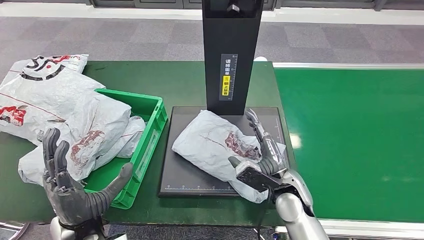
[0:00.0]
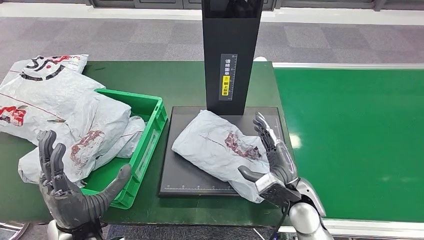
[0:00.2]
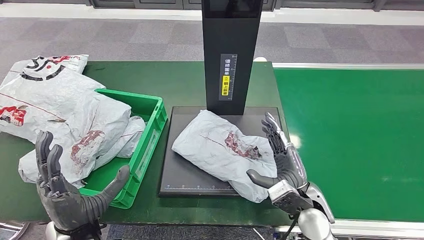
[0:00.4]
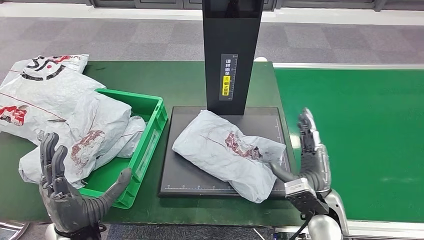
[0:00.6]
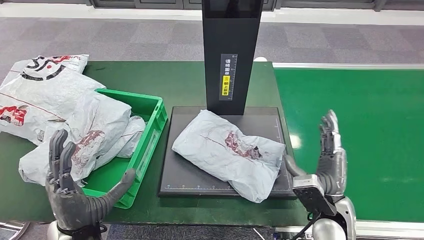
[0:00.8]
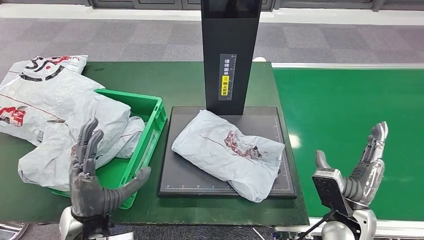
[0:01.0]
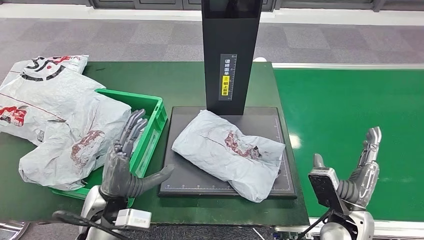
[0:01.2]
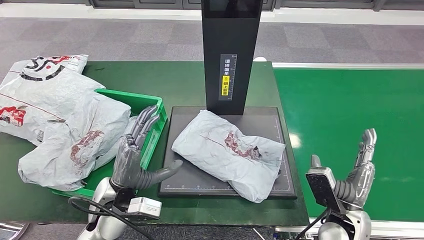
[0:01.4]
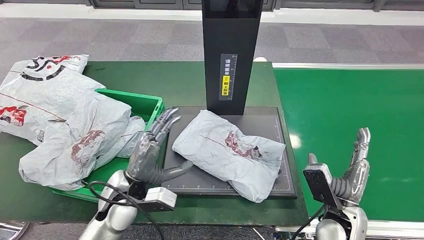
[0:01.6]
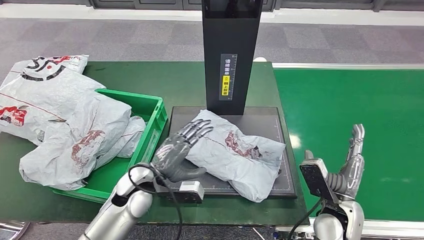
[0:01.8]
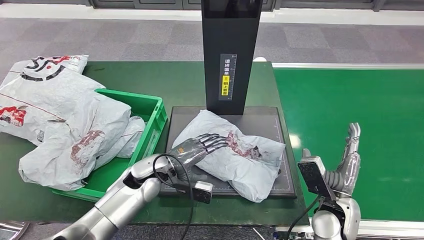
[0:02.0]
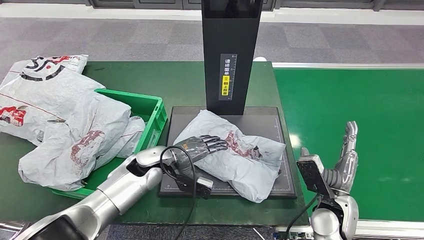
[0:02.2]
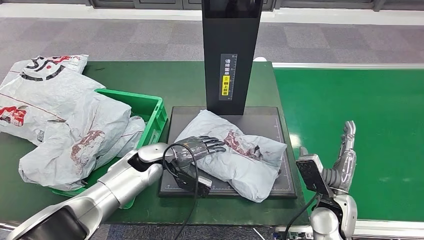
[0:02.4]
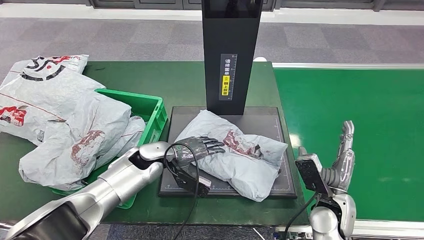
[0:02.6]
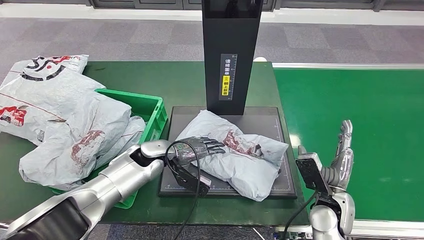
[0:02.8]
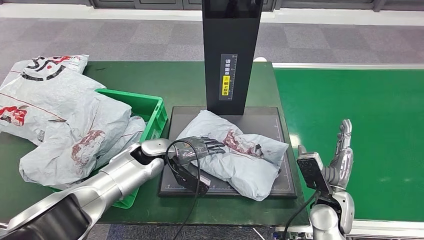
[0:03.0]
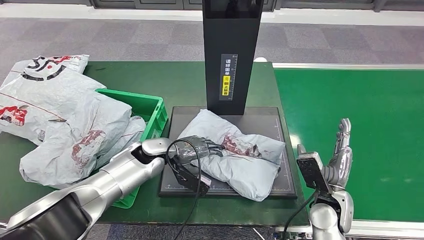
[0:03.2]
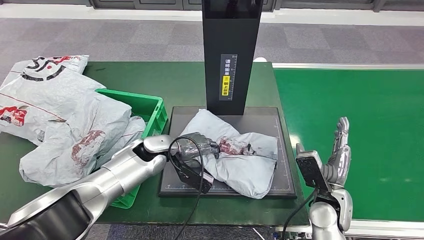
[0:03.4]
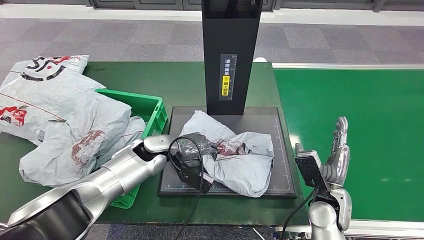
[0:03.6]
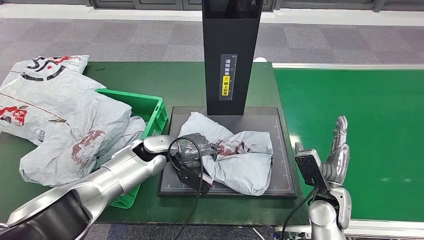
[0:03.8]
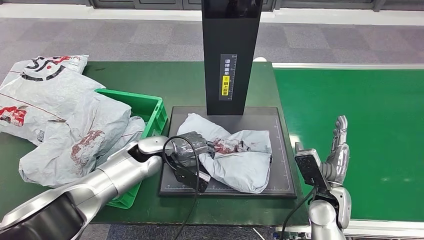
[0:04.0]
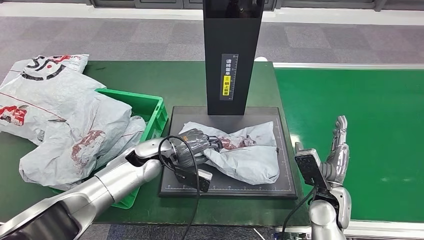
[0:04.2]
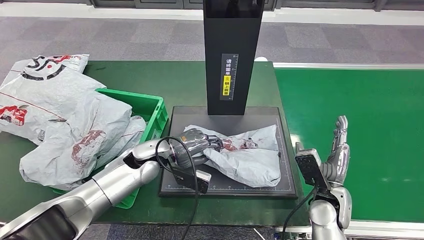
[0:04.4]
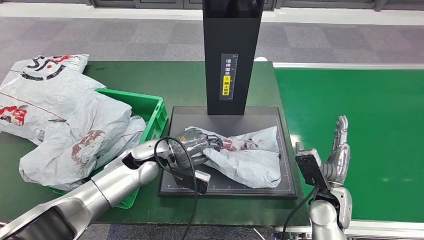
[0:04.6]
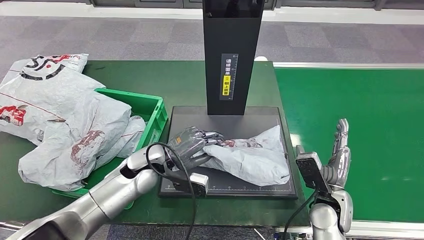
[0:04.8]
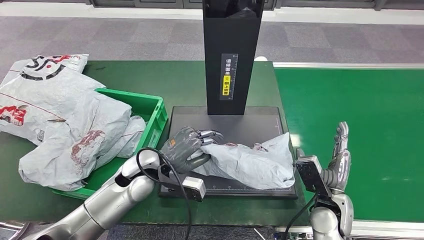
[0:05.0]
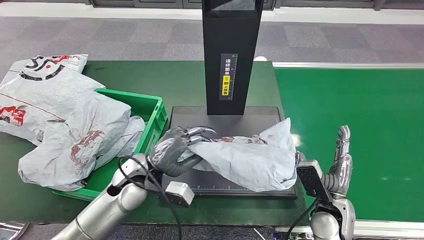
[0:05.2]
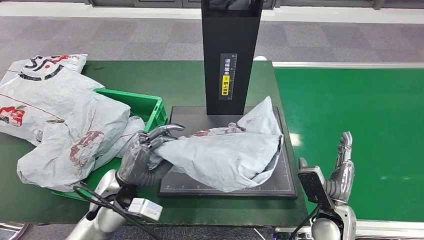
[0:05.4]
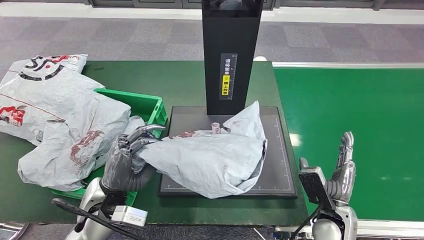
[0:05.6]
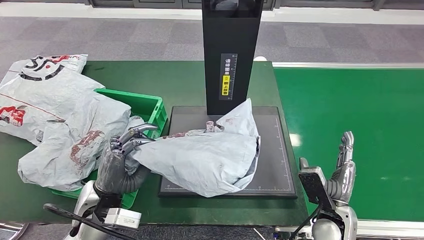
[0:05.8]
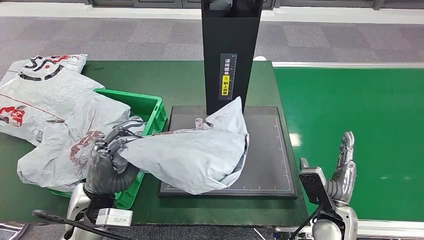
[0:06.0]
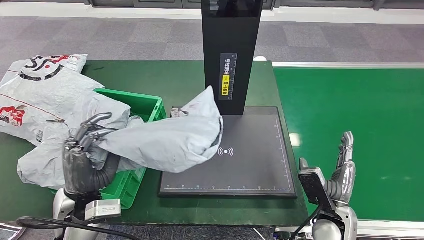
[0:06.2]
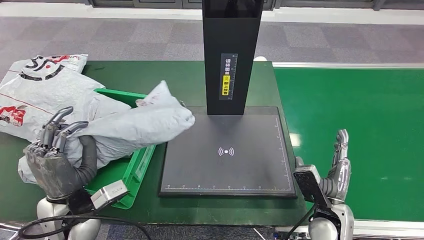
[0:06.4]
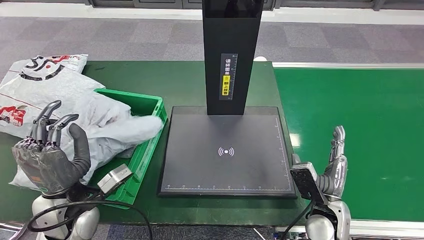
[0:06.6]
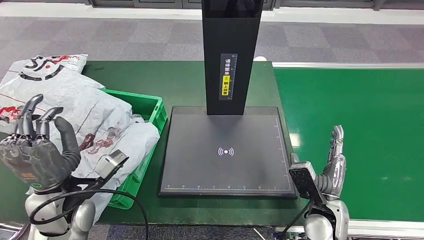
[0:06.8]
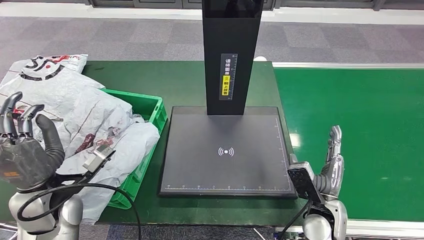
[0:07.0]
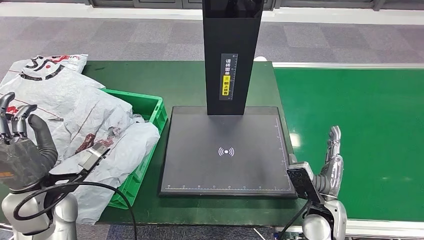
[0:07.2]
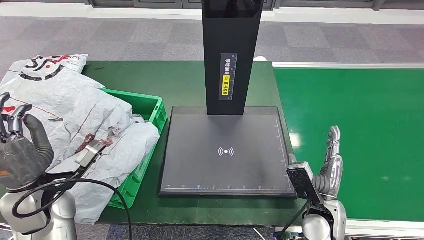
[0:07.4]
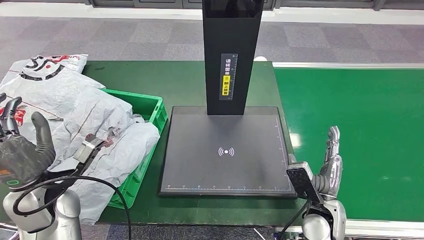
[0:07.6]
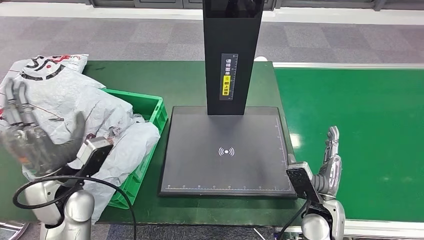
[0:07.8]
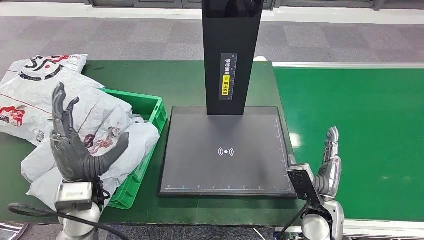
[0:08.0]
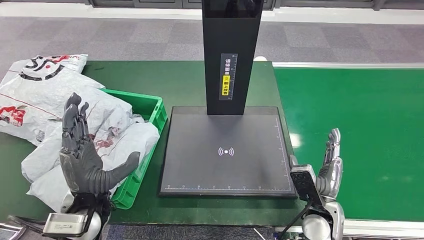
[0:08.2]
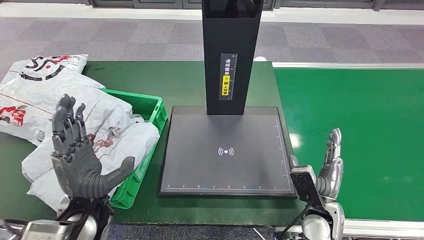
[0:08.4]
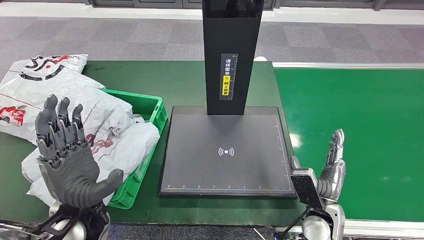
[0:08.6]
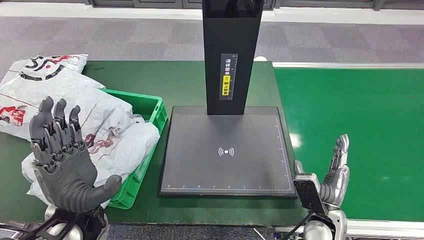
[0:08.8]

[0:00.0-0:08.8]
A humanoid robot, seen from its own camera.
Step, 0:01.4 to 0:04.8: Pick up the parcel from the inbound machine.
Step, 0:05.0 to 0:08.8: Place the parcel into the delivery box.
0:00.0 to 0:01.4: The right hand heads to the right and backward, covering approximately 15 cm. The left hand goes approximately 5 cm forward.
0:01.4 to 0:03.0: The left hand travels forward by roughly 15 cm.
0:07.4 to 0:08.8: The left hand is displaced to the right by some 10 cm.

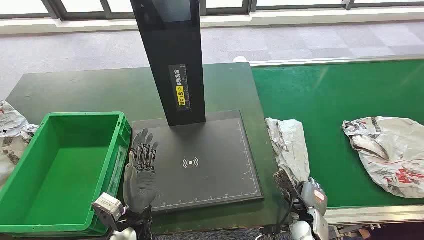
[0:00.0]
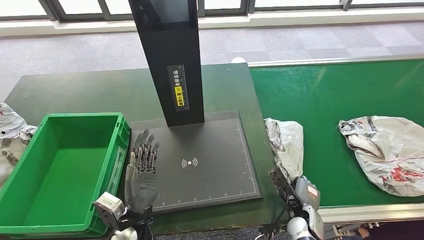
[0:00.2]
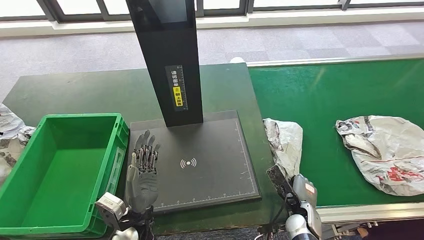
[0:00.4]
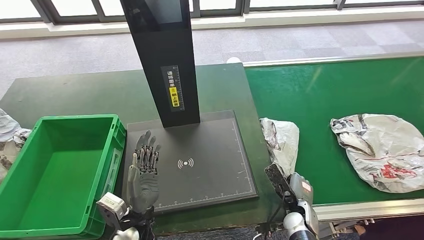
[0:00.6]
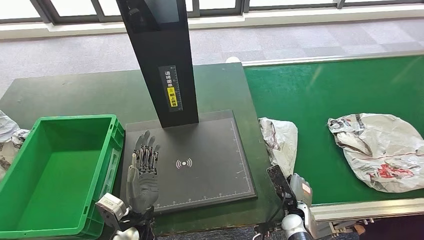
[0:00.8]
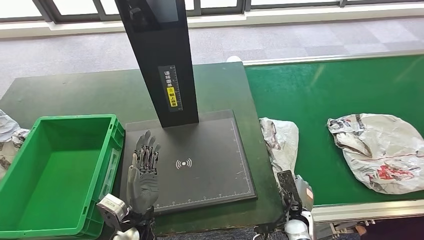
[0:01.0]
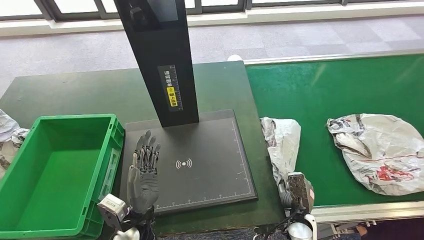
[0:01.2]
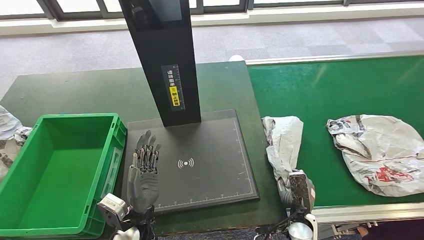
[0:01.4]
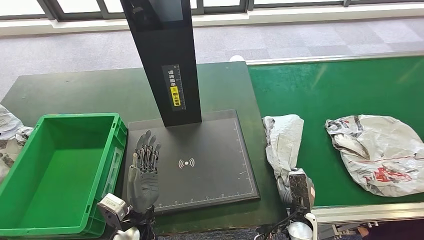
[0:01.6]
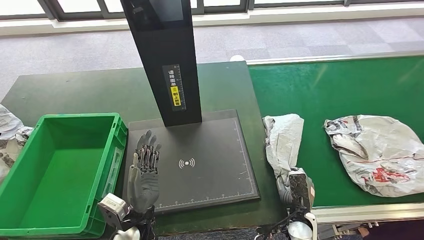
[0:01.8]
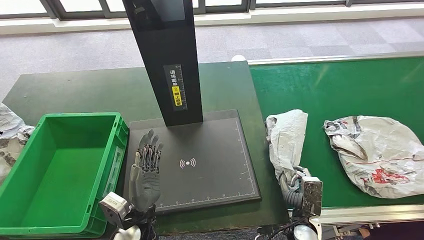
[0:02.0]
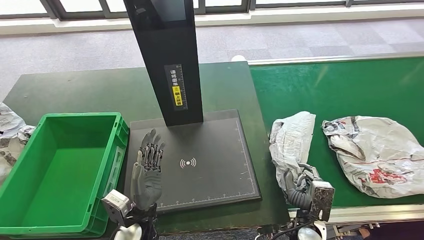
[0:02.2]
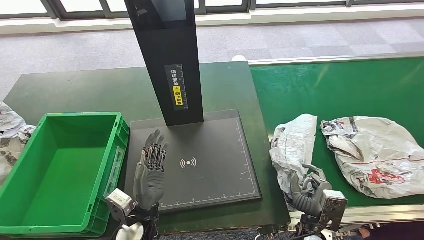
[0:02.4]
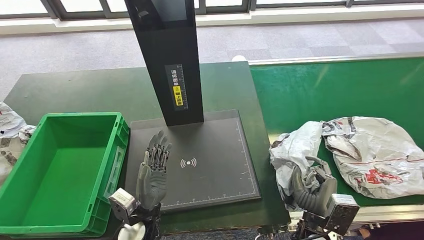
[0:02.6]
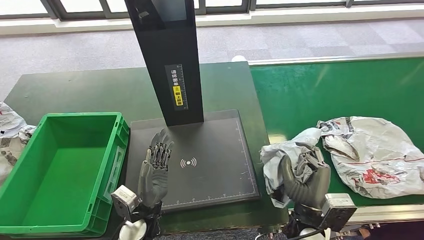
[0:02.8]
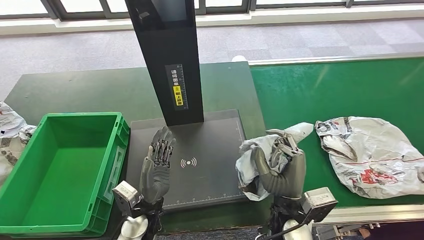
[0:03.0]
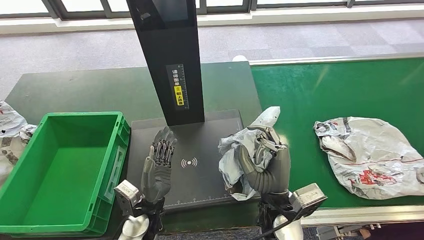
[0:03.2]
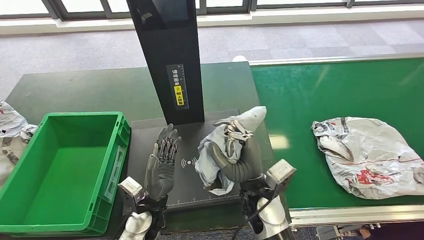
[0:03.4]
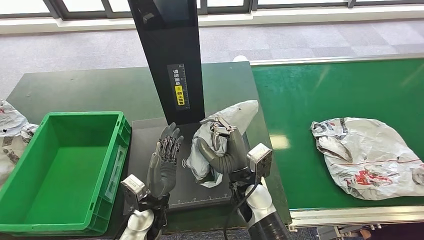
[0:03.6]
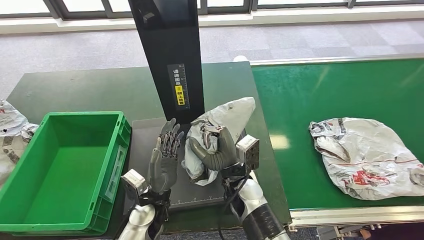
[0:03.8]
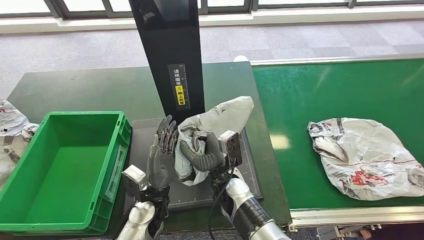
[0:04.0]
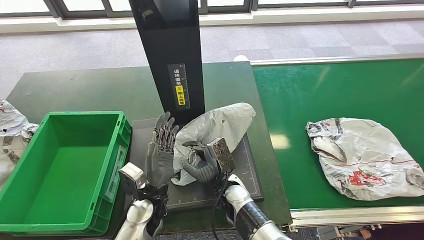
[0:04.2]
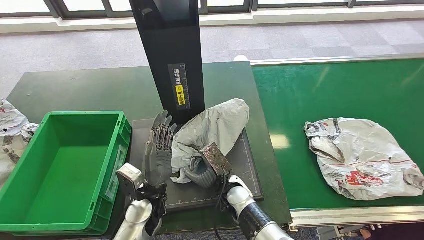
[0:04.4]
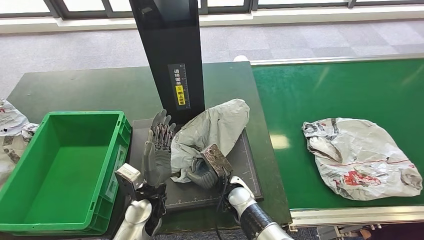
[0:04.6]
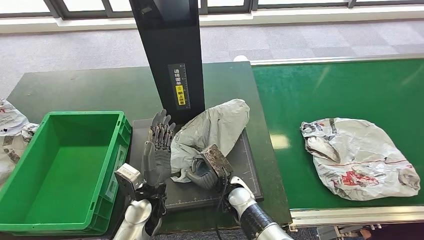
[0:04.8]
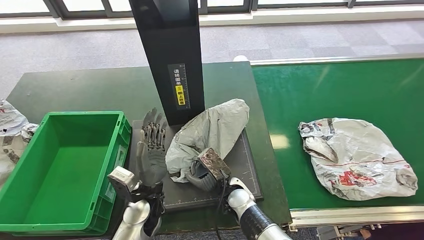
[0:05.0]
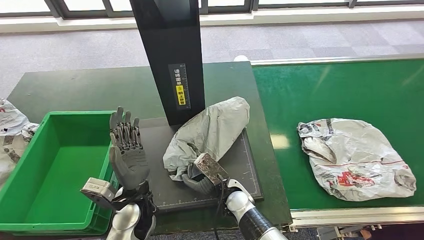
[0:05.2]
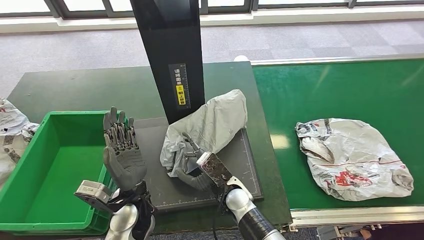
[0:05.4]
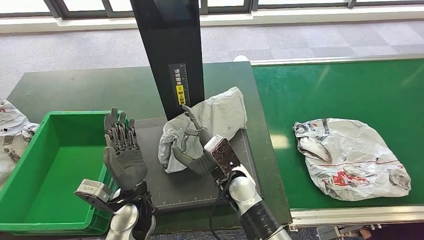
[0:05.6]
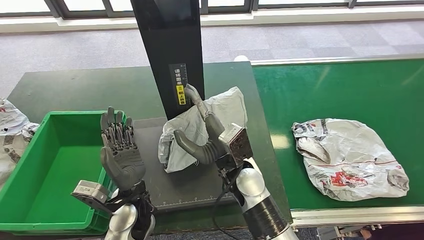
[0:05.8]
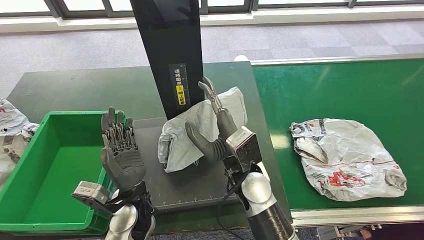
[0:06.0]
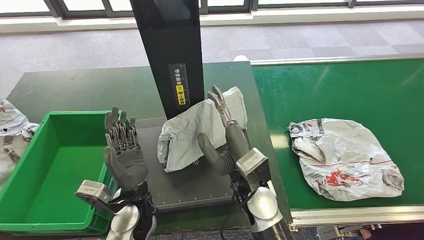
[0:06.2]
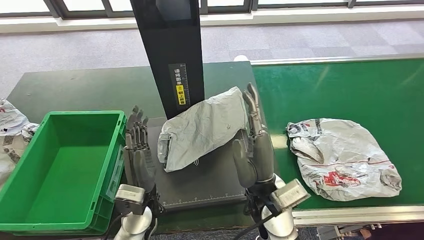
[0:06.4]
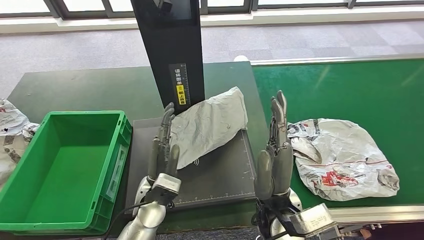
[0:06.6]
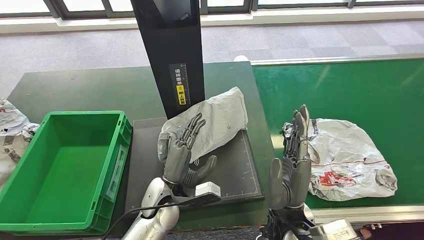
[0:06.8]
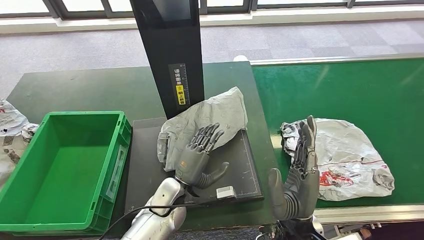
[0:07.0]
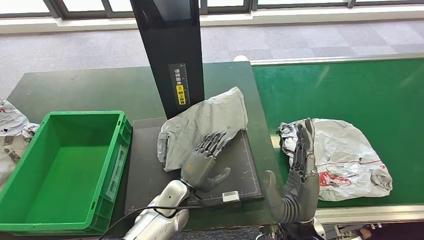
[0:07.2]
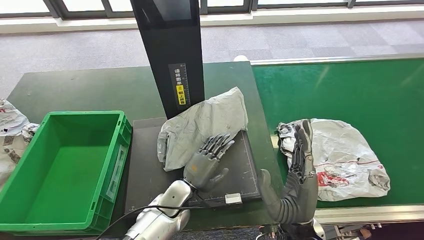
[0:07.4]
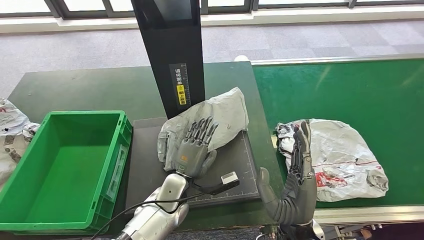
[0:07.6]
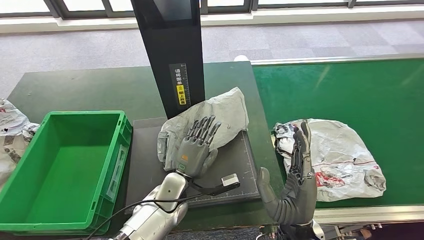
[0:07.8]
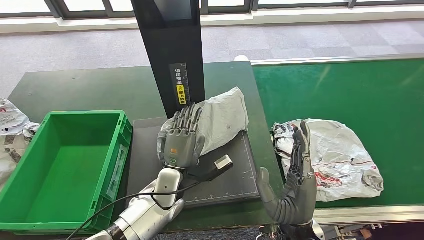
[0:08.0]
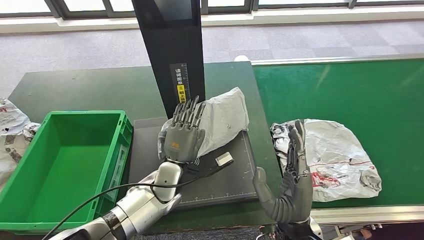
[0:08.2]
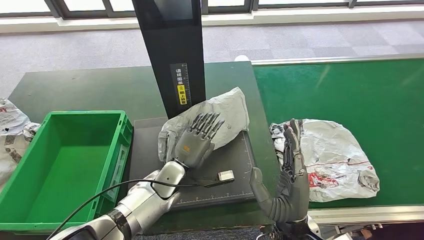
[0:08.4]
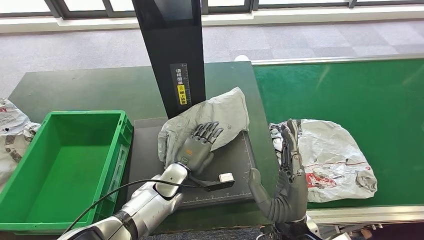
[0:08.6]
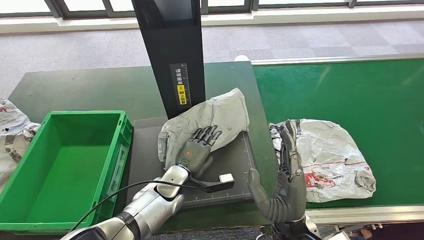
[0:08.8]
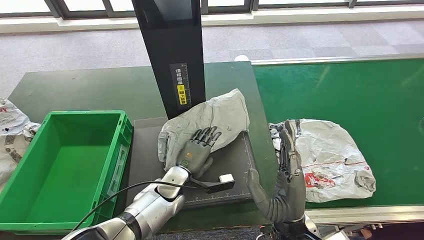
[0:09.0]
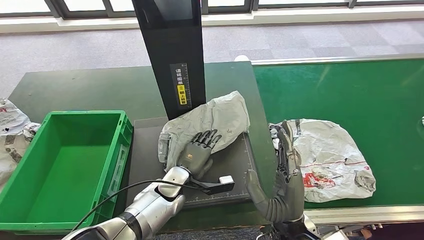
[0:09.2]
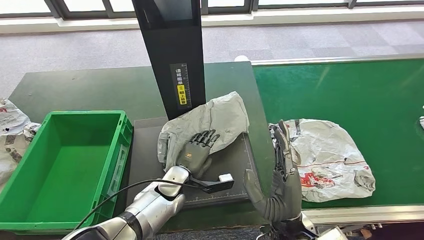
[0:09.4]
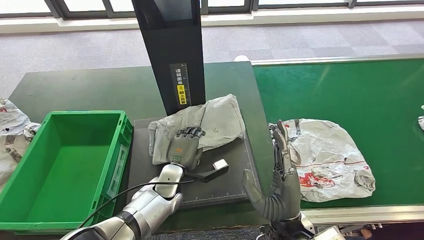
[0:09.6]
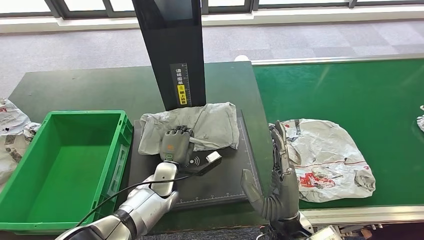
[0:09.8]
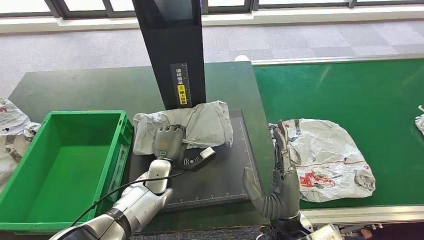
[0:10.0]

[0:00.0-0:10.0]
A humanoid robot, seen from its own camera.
Step, 0:00.0 to 0:04.2: Take the parcel off the conveyor belt.
Step, 0:04.4 to 0:06.8: Place the parcel onto the inbound machine.
0:05.8 to 0:07.2: The right hand is displaced backward and to the right by roughly 15 cm, while the left hand travels to the right and downward by about 10 cm.
0:07.2 to 0:08.6: The left hand ends up roughly 5 cm from where it was.
